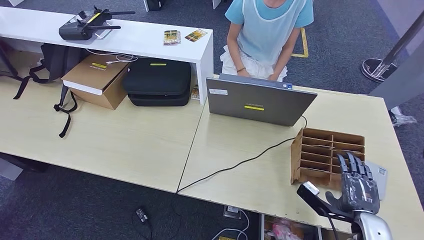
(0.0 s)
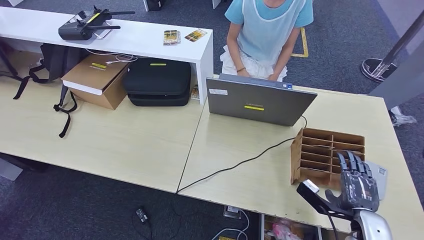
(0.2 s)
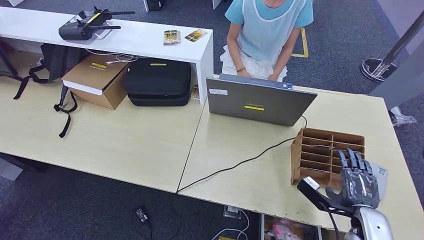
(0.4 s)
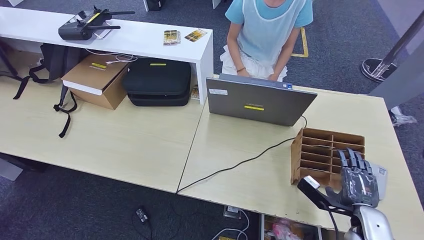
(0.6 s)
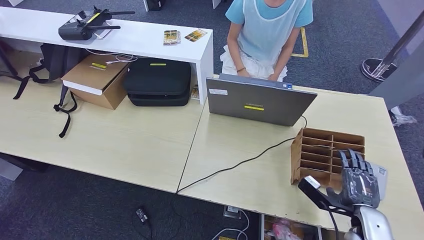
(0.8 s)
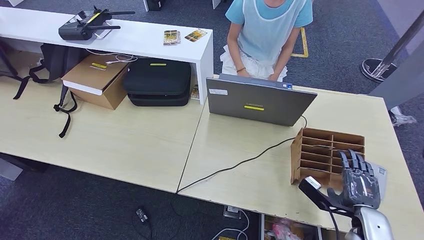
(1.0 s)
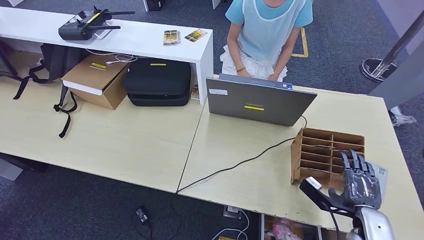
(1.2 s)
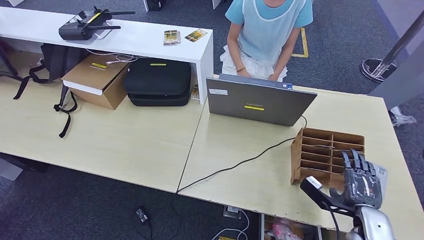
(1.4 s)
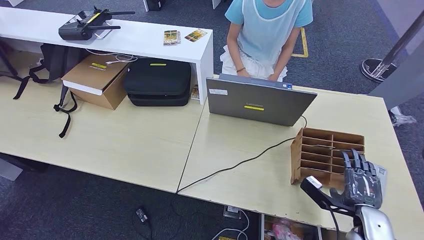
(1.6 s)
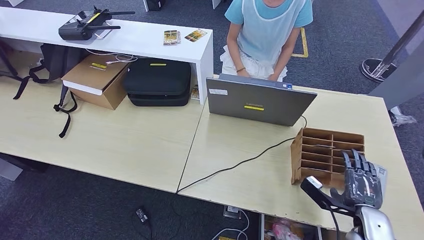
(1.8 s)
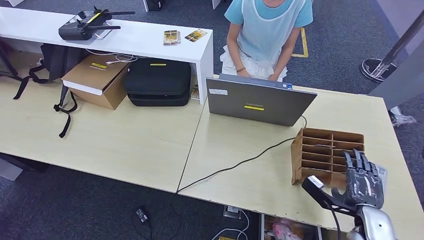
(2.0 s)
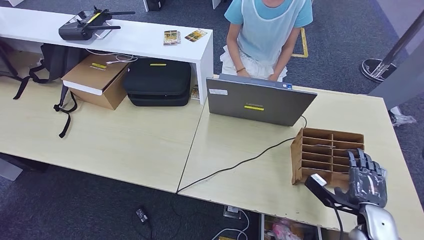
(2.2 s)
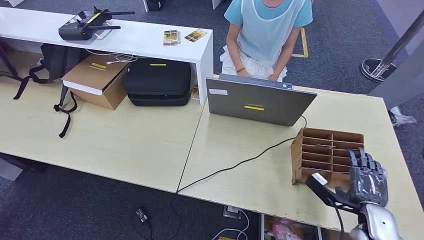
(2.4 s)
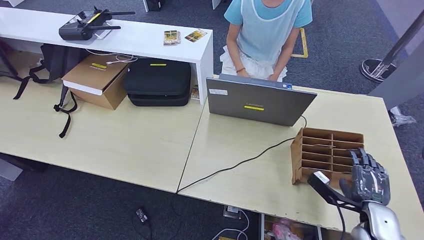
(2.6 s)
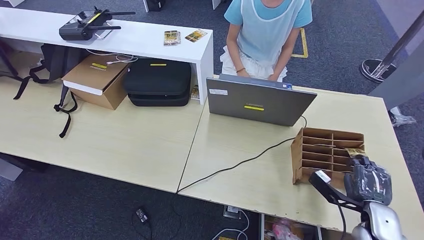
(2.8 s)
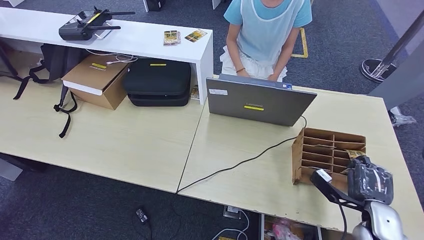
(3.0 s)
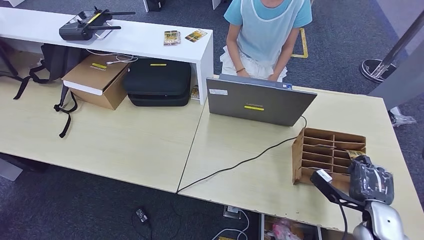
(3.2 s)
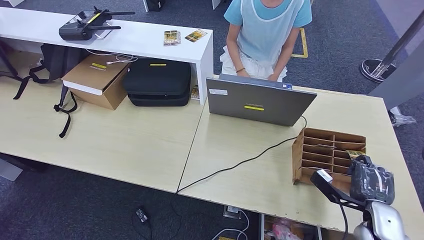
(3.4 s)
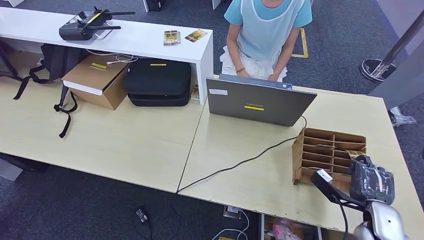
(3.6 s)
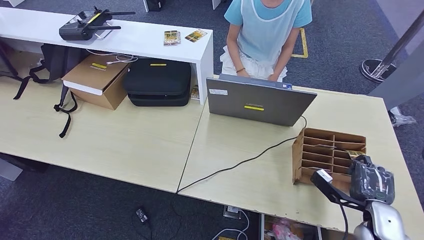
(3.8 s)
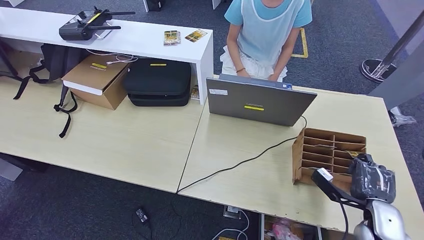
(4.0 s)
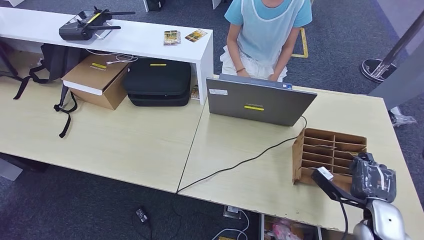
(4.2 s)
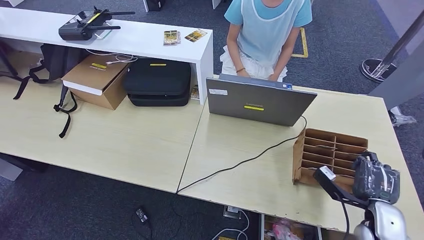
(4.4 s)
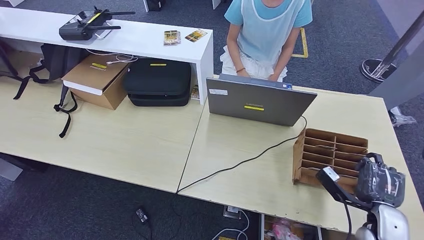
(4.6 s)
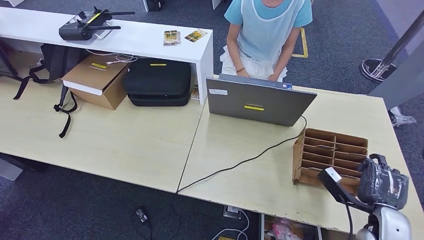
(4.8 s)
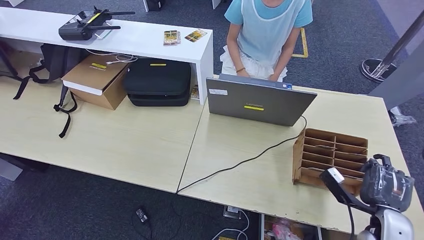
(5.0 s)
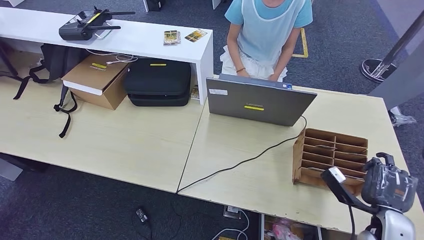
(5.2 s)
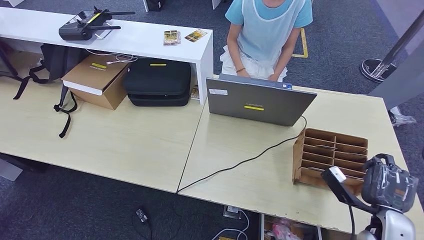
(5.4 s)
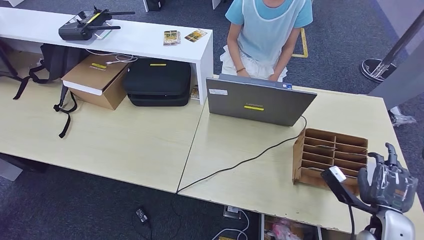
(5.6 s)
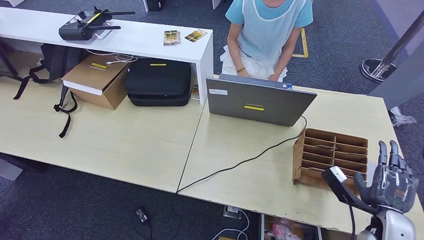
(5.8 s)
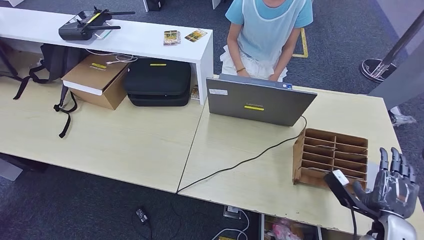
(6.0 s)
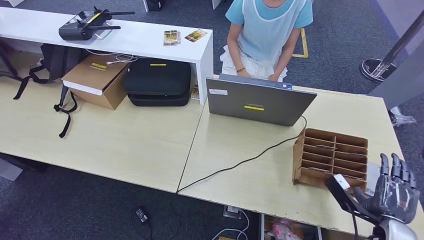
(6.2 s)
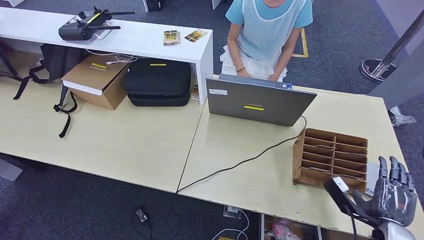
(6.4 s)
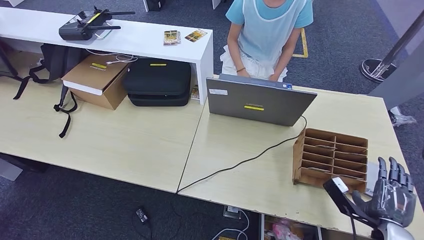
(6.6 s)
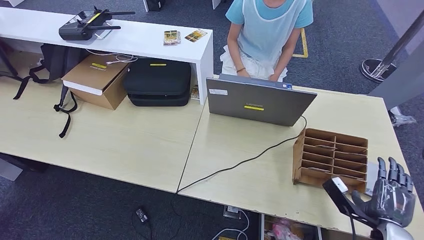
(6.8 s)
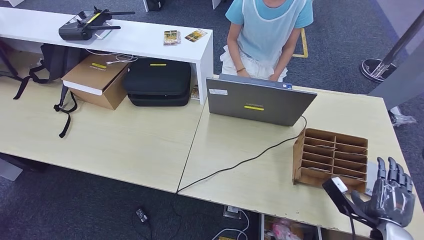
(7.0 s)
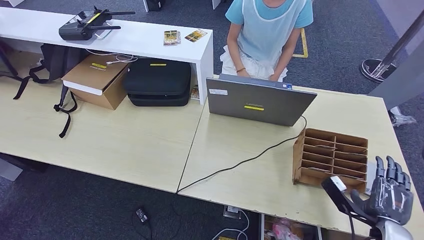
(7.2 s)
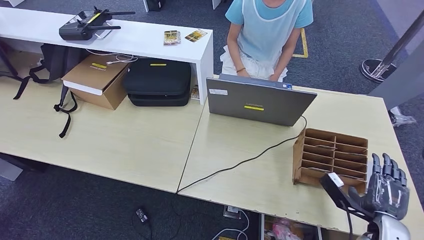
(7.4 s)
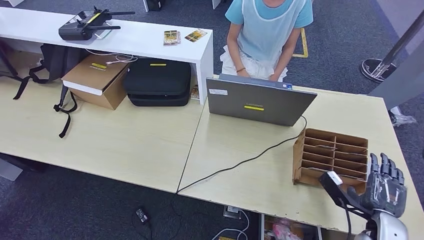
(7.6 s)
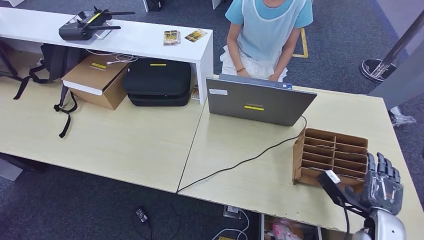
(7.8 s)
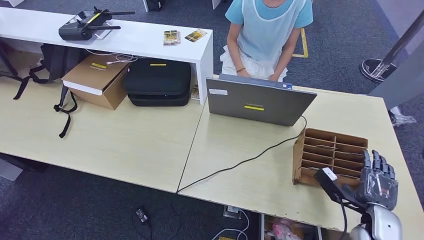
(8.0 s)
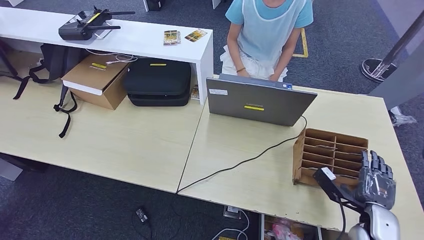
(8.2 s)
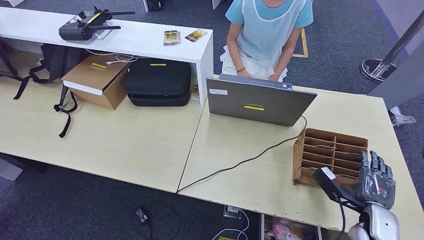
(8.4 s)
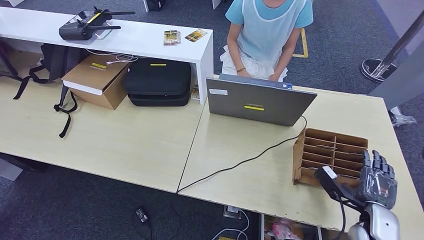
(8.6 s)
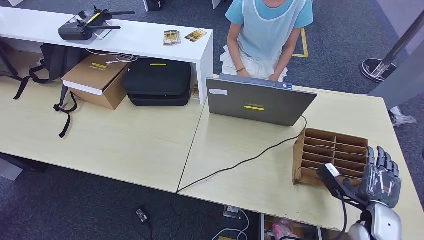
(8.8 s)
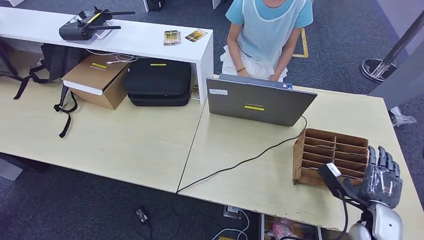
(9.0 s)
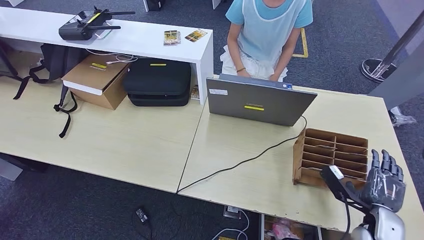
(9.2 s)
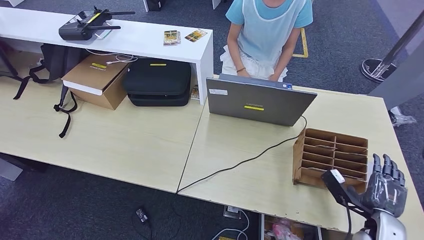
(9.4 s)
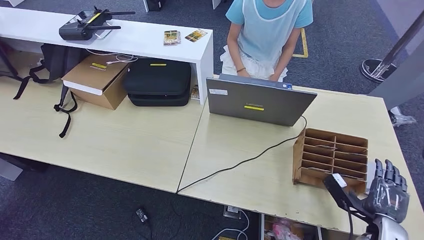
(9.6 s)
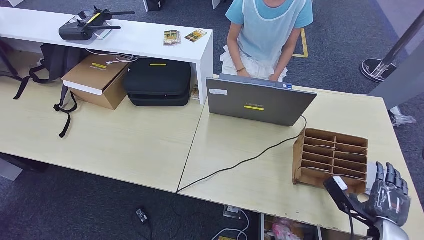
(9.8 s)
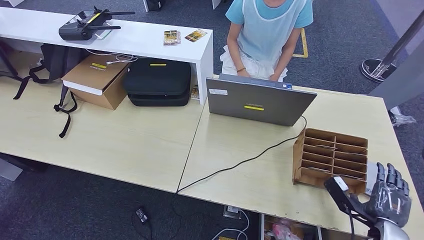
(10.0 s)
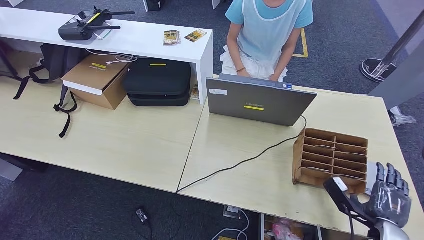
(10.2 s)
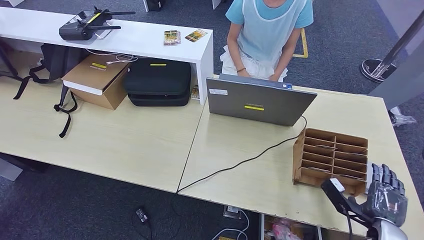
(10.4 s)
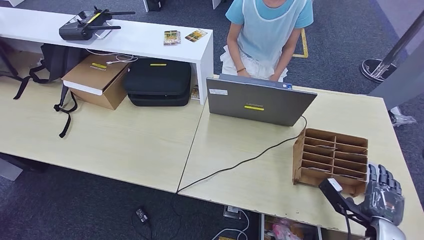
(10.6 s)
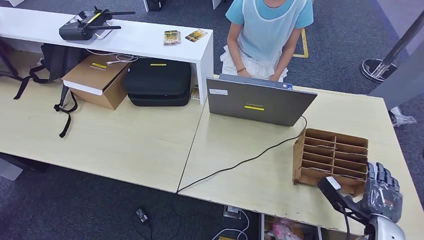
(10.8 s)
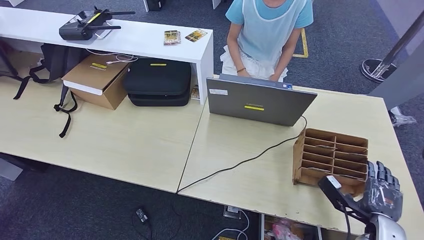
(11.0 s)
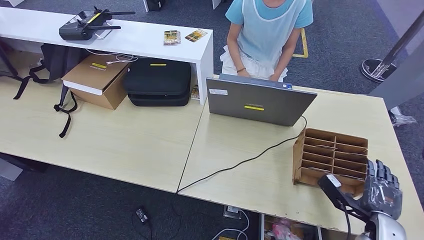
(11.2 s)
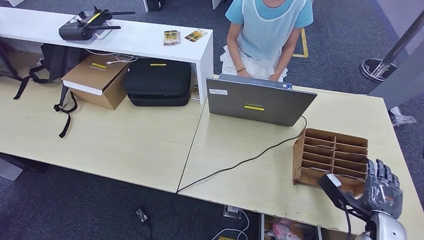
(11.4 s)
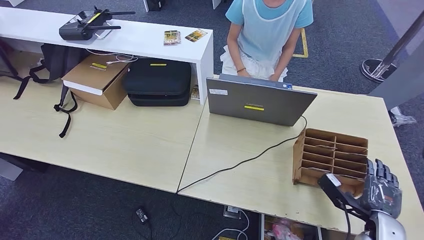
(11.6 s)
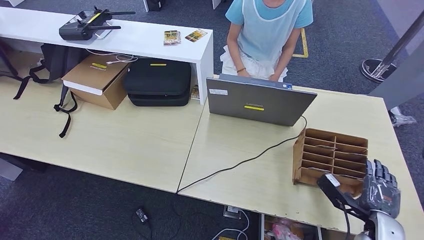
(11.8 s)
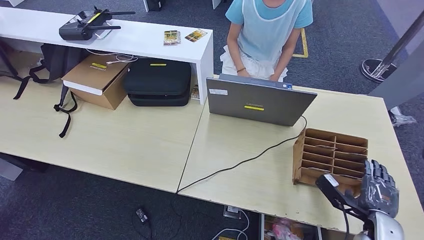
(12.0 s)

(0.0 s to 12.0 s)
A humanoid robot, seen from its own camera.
0.0 s - 4.4 s: There are only small adjustments of the hands.
4.4 s - 7.6 s: The hands make only small movements.
7.6 s - 12.0 s: The hands make only small movements.

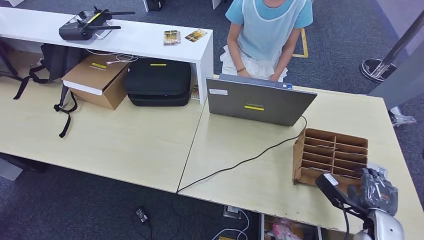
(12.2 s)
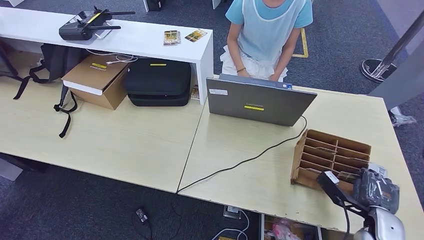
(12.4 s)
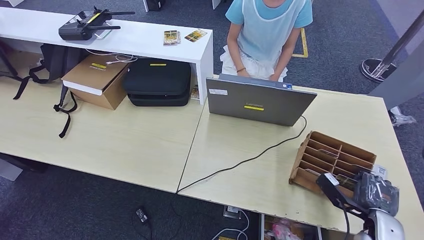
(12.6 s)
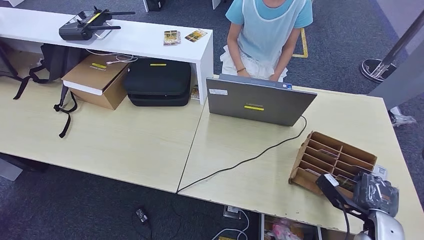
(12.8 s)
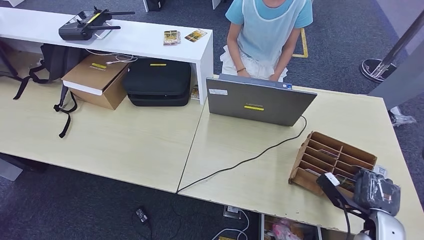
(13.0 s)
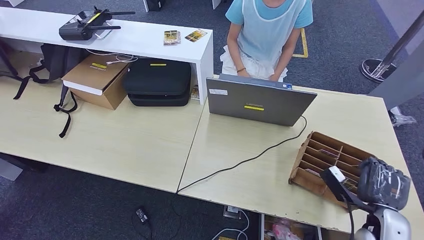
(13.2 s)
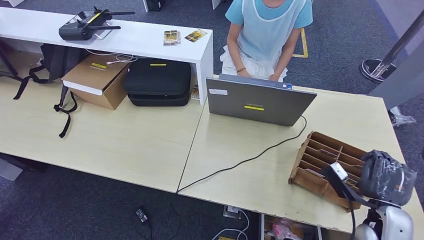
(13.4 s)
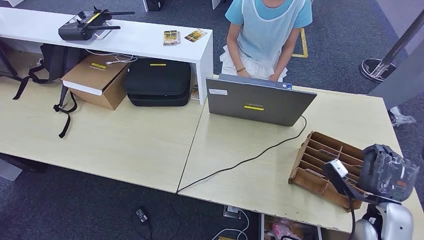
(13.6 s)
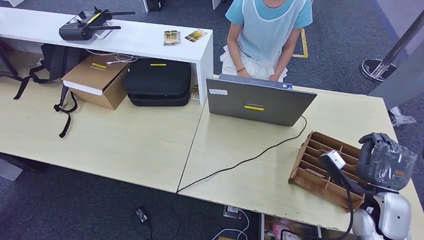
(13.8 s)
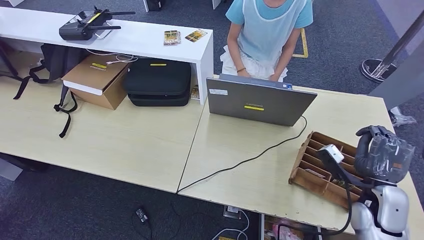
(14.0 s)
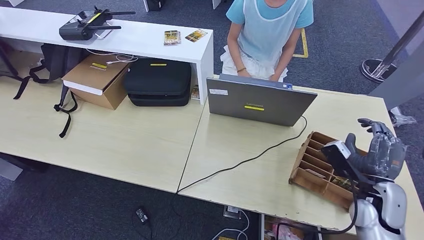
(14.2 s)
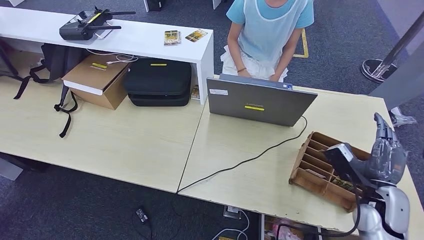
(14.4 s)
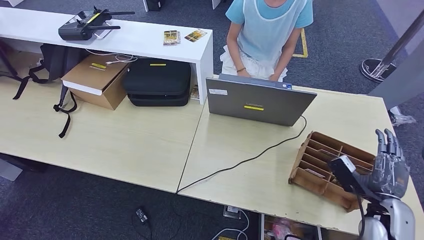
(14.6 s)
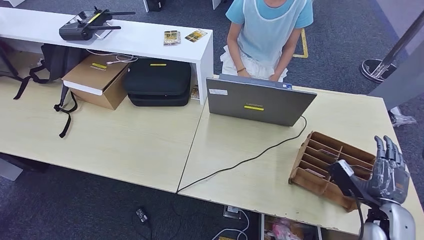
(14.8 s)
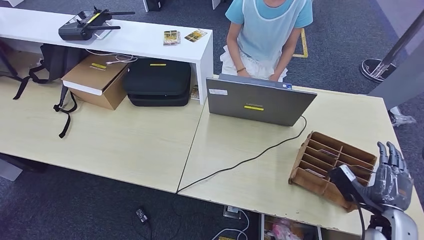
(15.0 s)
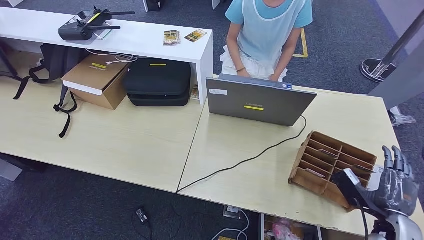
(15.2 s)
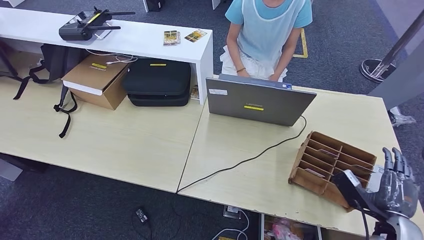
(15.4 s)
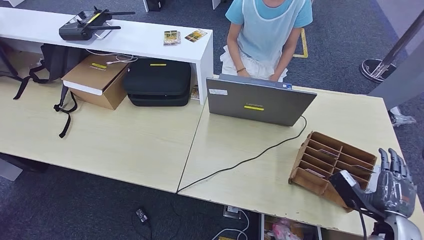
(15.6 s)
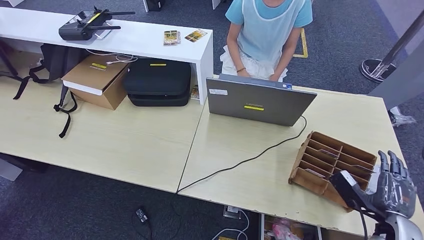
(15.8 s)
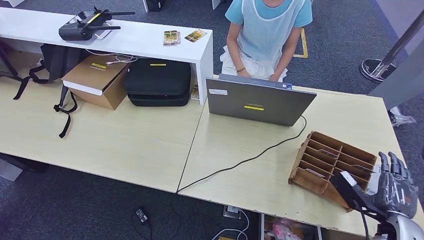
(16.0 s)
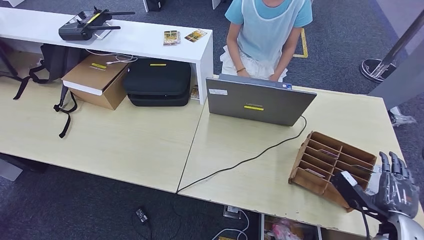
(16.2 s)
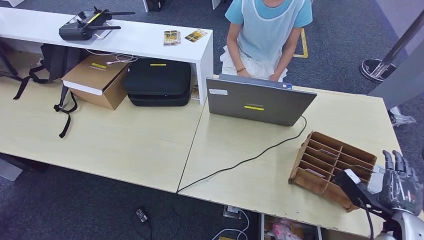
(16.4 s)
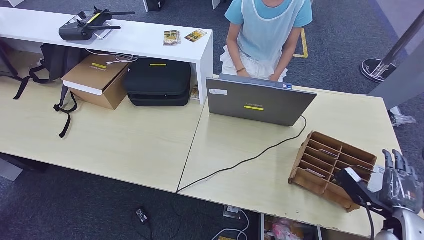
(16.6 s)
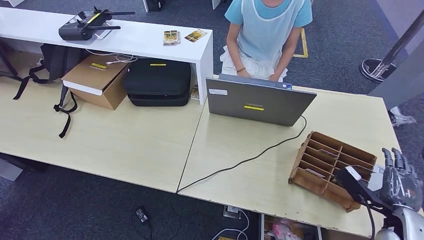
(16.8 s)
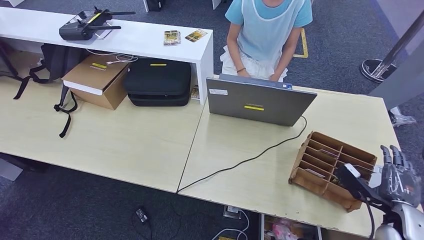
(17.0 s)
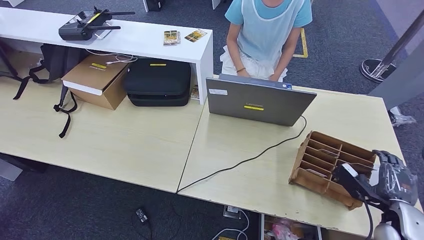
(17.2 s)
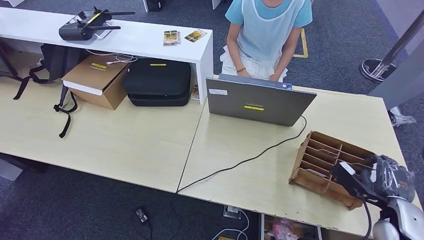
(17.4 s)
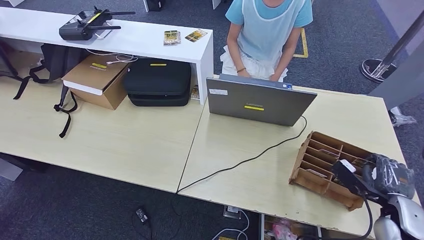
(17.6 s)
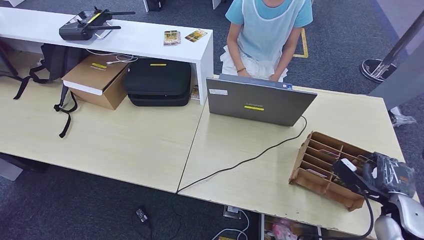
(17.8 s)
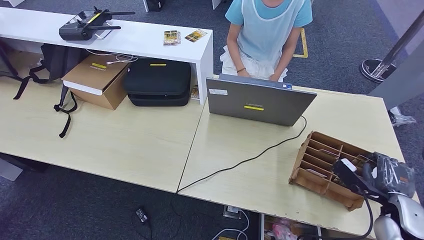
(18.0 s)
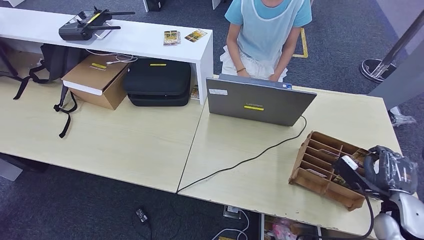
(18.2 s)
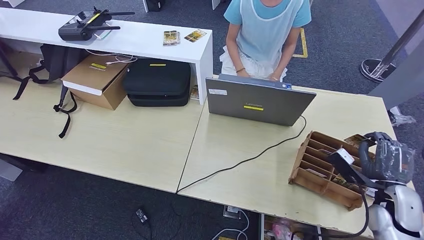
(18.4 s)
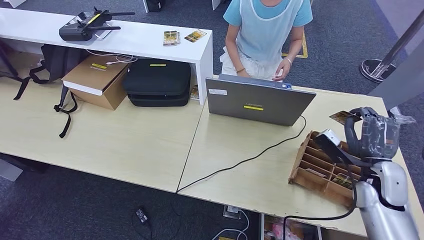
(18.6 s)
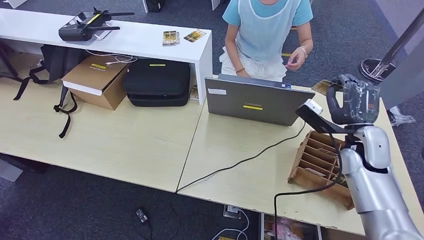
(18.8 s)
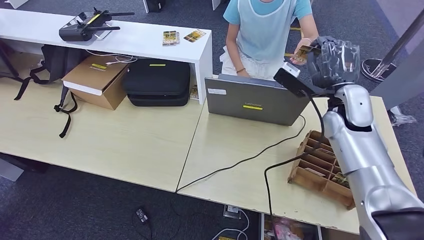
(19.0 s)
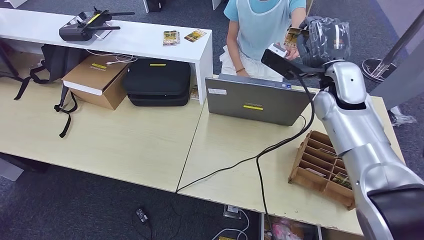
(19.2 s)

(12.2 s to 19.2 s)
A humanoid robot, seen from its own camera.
Step, 12.2 s - 18.4 s: Pick up the room key from the key card box.
13.6 s - 15.0 s: The hands make only small movements.
15.0 s - 17.8 s: The hands move only a little.
17.8 s - 19.2 s: The right hand is displaced upward, to the left and forward by approximately 35 cm.
